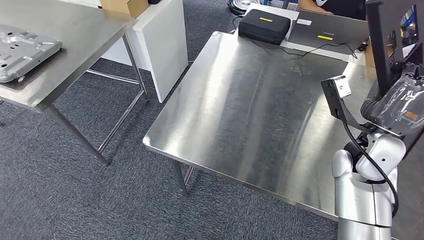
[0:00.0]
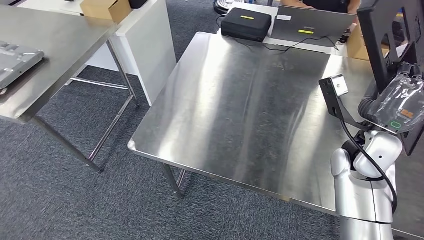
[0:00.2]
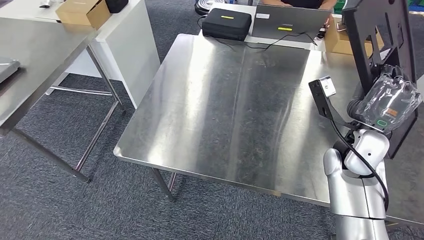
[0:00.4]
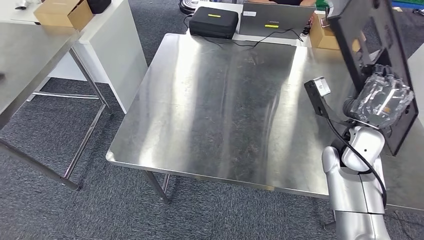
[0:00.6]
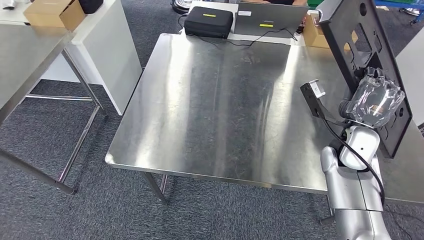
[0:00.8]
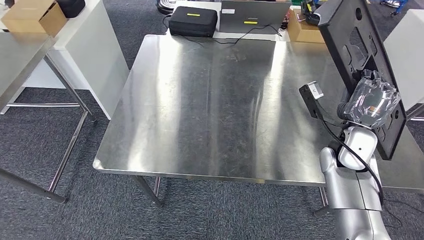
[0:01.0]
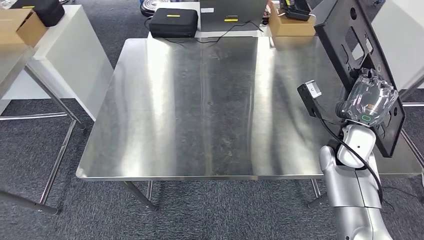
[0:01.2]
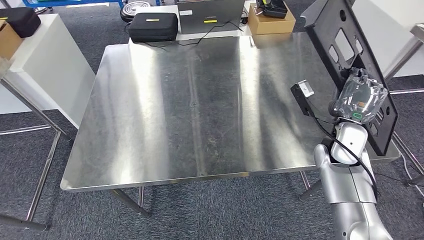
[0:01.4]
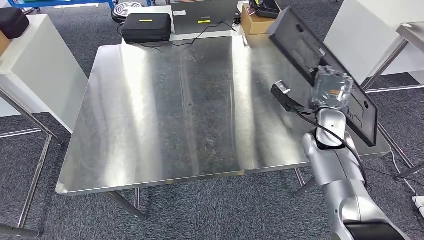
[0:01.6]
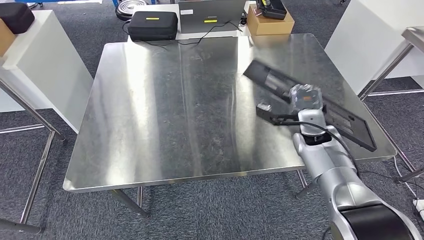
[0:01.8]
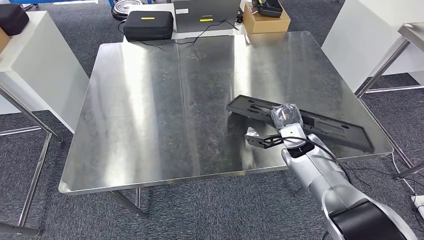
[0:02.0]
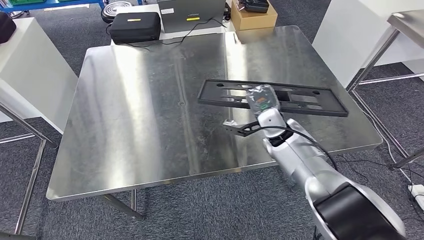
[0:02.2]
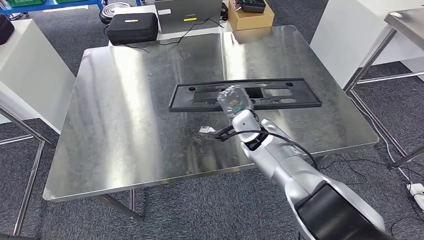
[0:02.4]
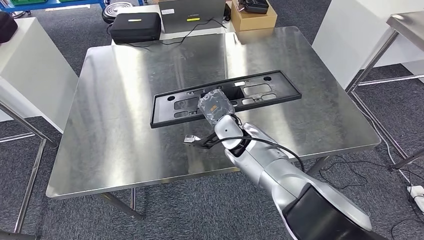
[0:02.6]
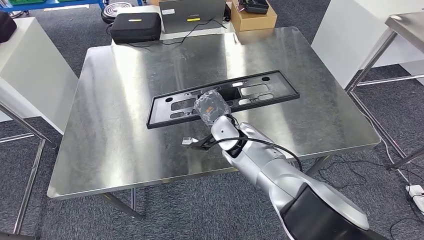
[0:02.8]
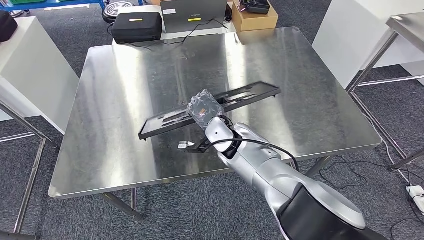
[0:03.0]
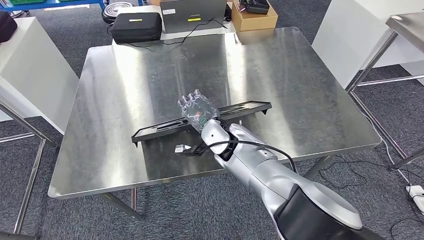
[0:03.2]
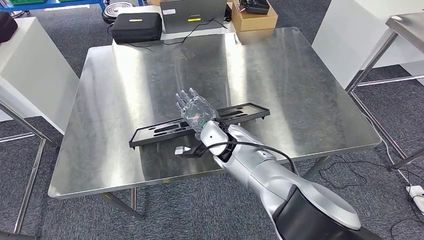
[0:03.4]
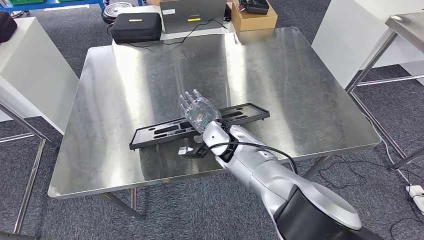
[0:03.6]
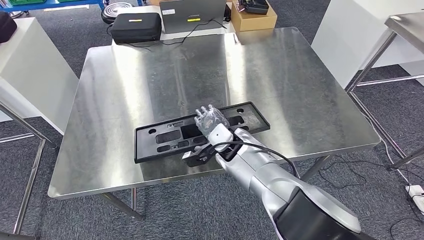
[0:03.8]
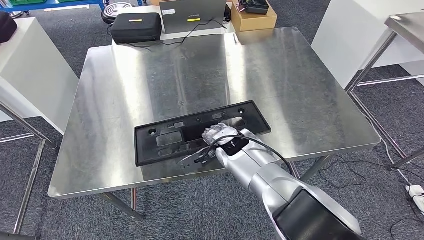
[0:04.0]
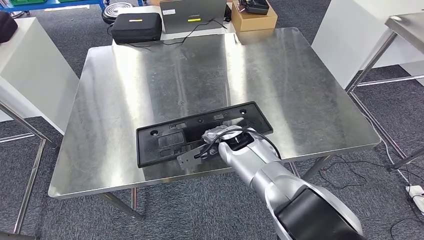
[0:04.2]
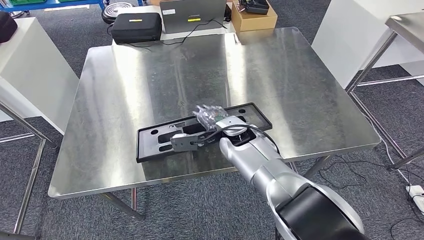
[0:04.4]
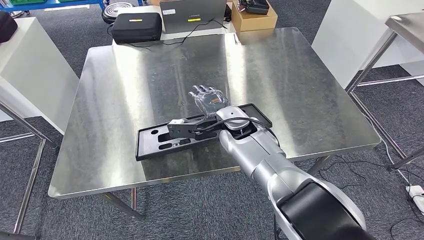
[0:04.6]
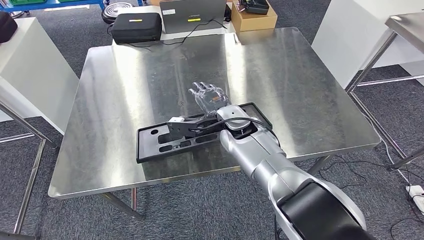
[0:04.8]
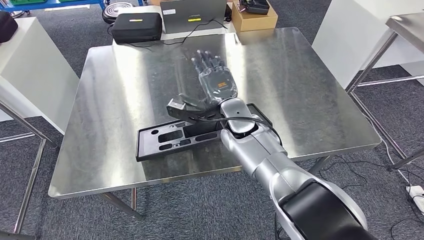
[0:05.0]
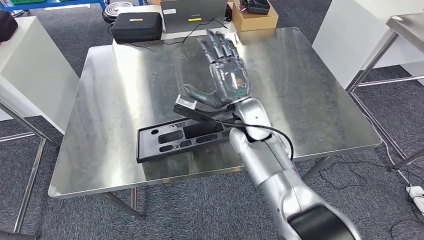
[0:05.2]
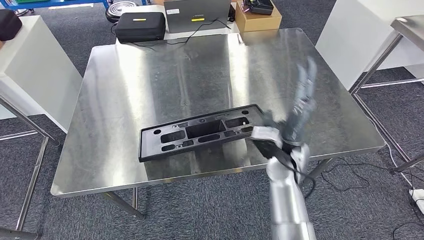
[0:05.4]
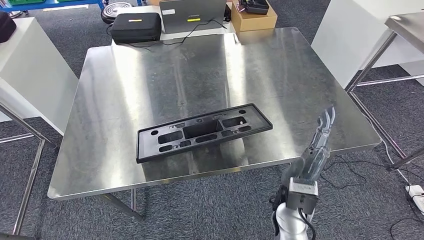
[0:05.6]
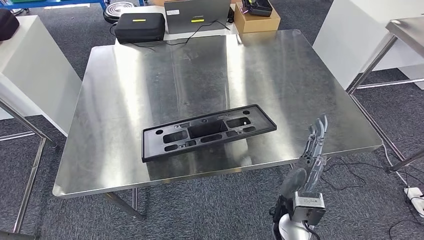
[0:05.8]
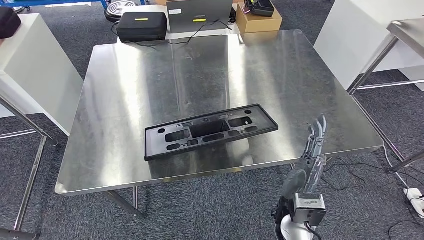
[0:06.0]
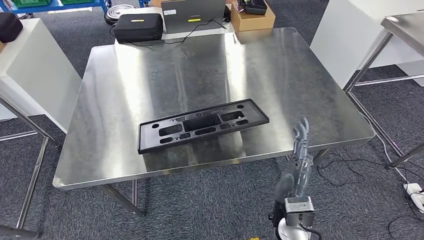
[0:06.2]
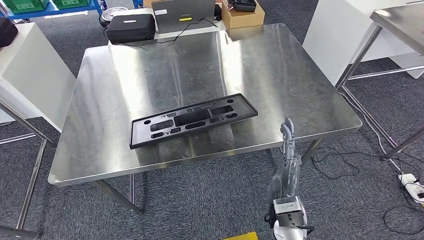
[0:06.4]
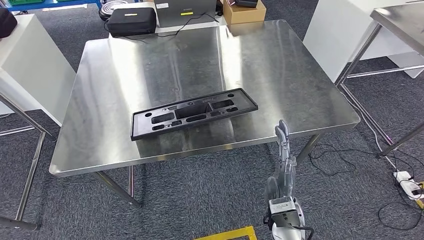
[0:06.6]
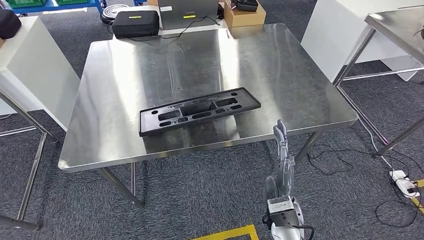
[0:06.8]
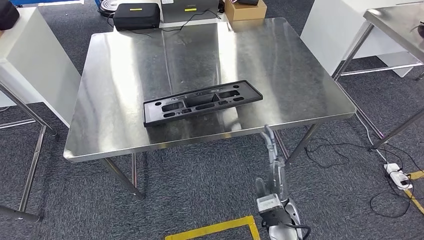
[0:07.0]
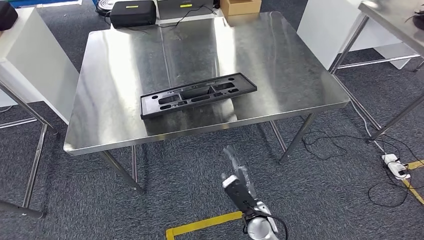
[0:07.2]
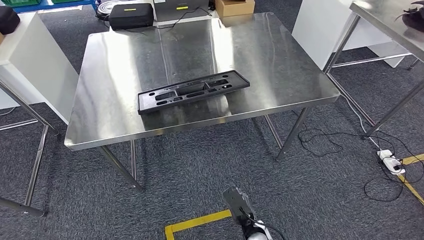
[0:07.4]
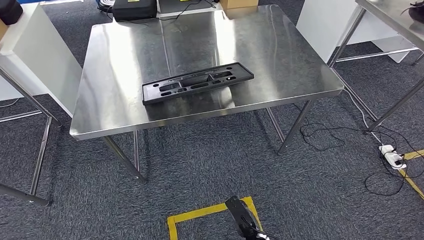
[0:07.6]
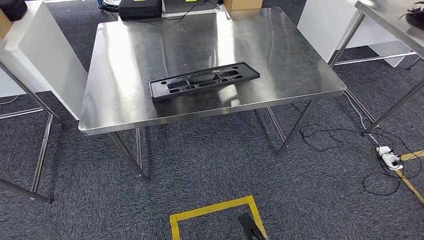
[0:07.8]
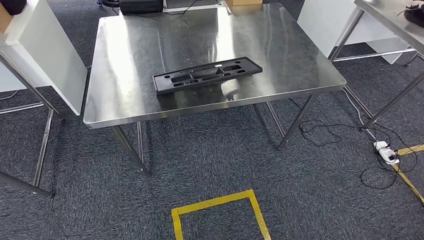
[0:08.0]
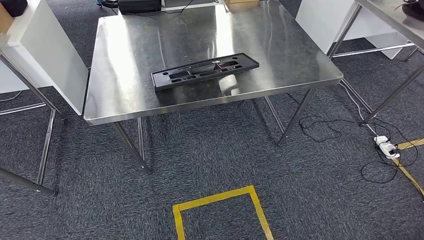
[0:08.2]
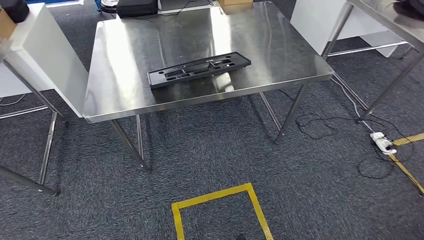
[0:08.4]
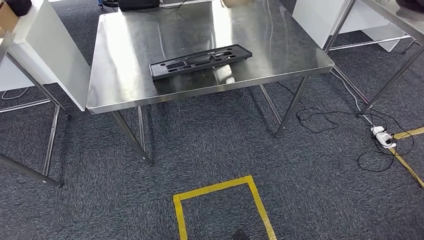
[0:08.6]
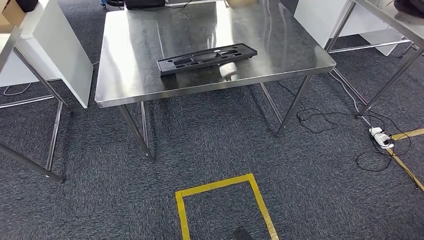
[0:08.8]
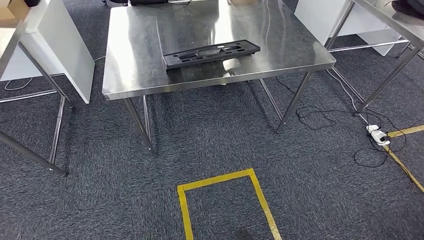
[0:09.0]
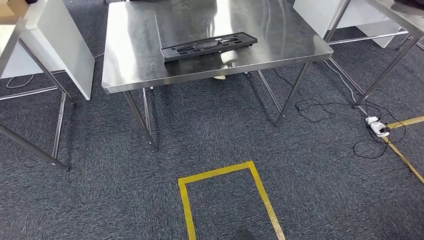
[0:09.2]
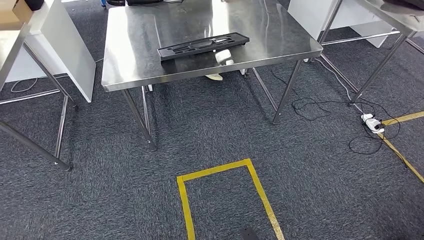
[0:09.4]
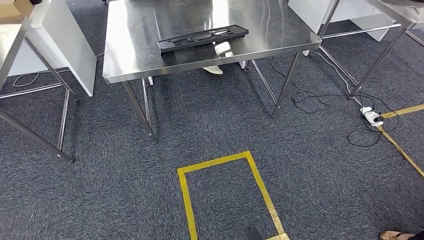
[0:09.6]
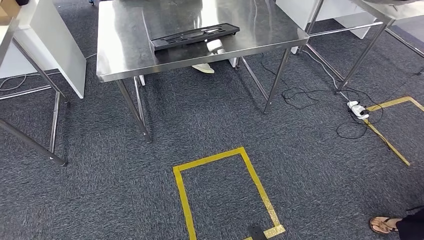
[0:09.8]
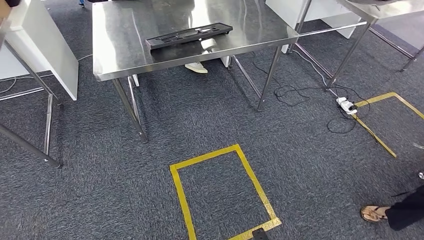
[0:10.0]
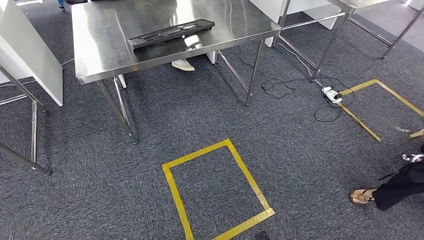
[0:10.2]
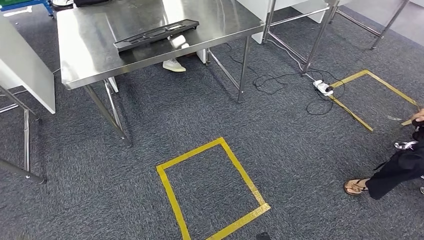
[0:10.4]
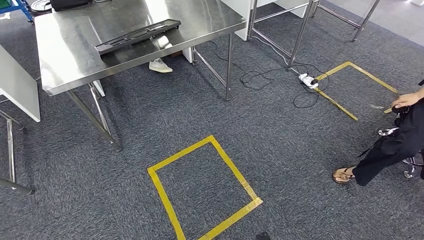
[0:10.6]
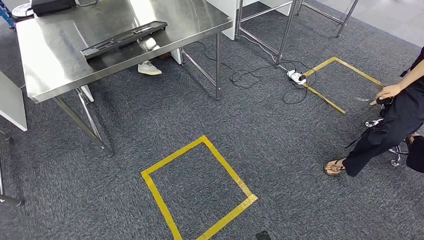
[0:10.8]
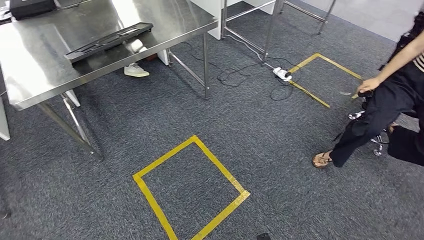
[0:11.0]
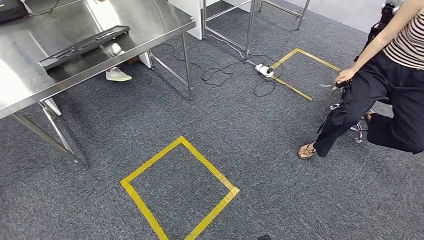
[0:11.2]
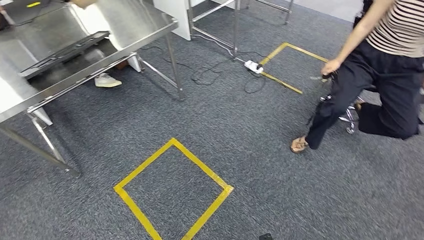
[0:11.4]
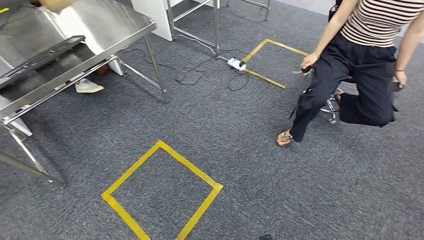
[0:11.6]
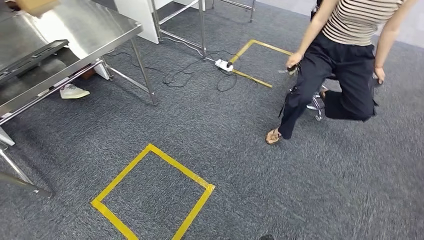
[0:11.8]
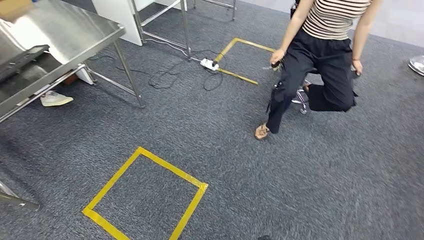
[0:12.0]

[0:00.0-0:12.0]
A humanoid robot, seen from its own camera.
Step, 0:00.0 to 0:06.2: Insert the large material into the corresponding slot on the workbench.

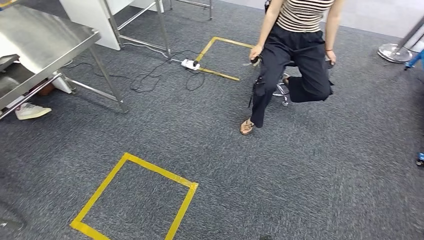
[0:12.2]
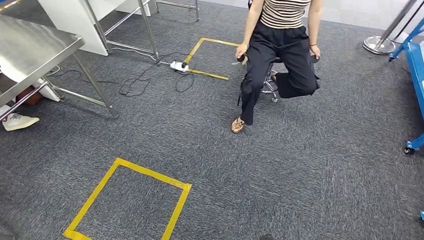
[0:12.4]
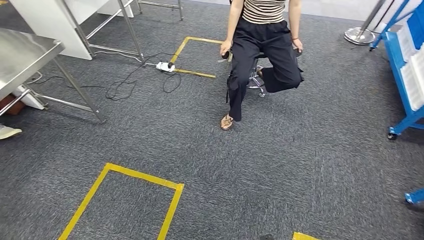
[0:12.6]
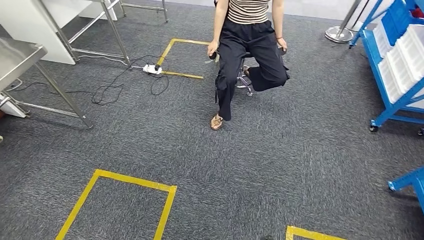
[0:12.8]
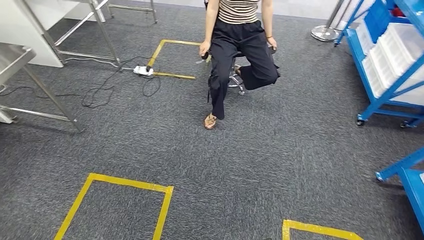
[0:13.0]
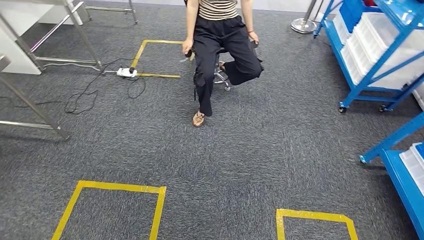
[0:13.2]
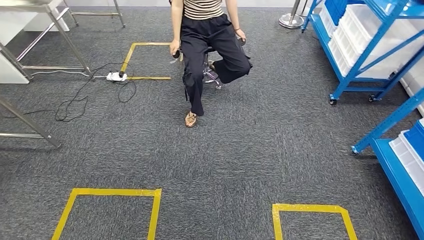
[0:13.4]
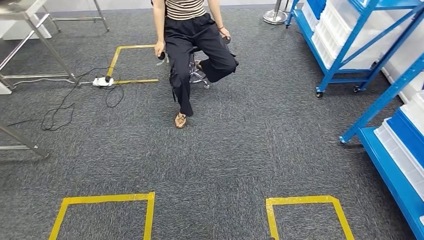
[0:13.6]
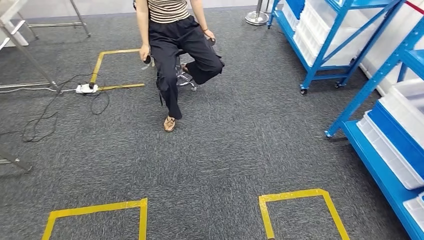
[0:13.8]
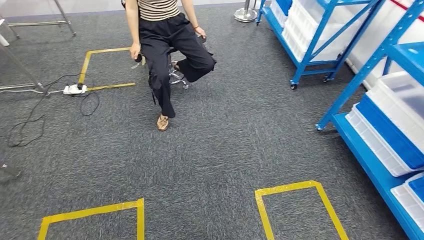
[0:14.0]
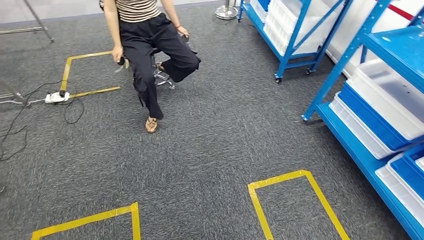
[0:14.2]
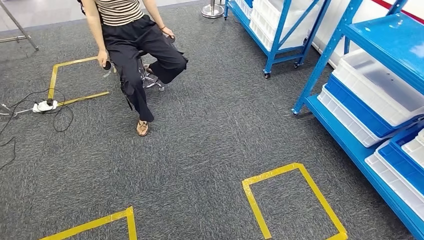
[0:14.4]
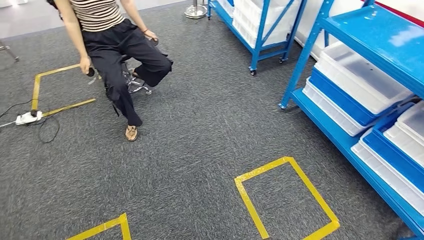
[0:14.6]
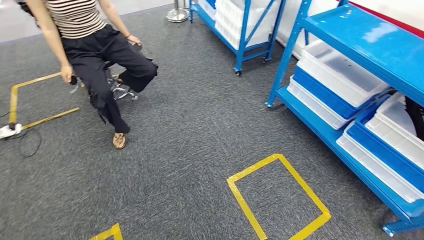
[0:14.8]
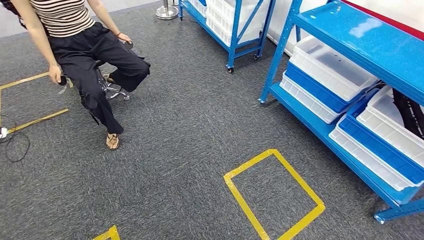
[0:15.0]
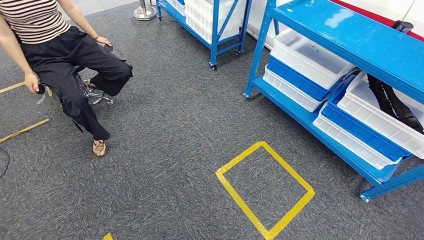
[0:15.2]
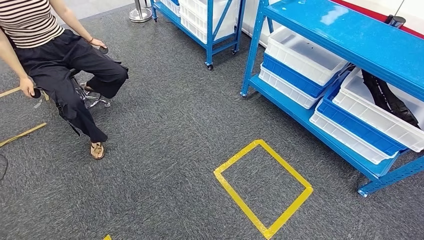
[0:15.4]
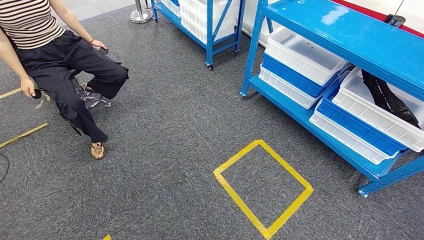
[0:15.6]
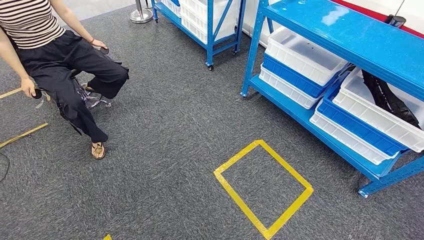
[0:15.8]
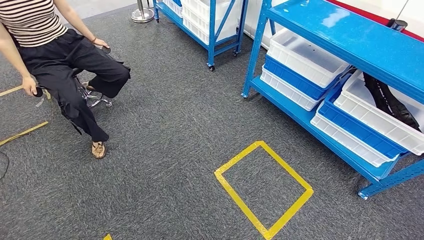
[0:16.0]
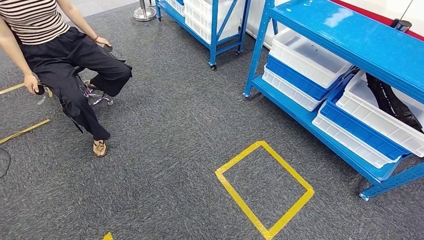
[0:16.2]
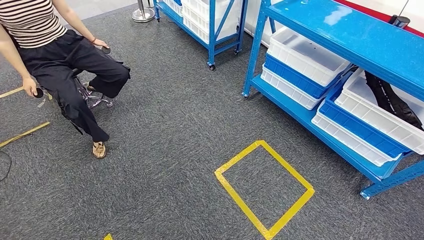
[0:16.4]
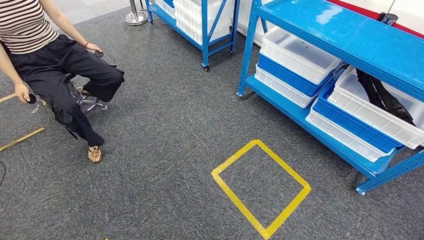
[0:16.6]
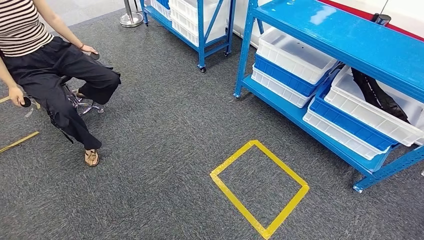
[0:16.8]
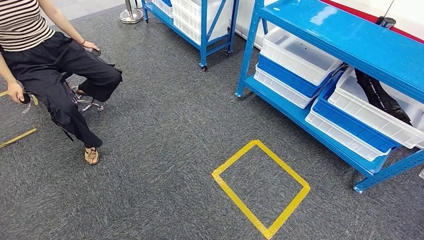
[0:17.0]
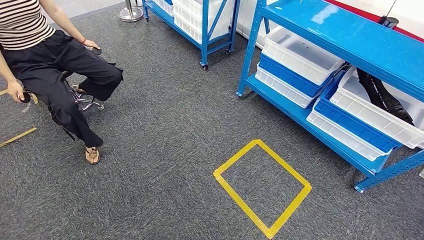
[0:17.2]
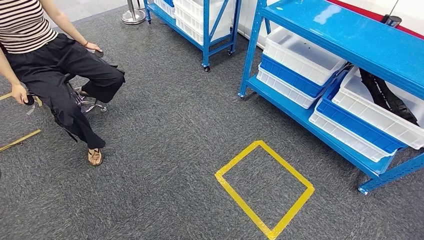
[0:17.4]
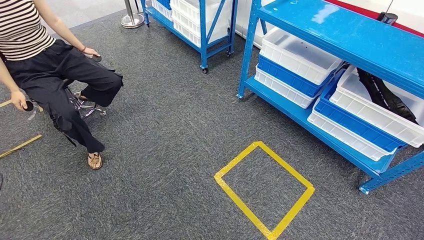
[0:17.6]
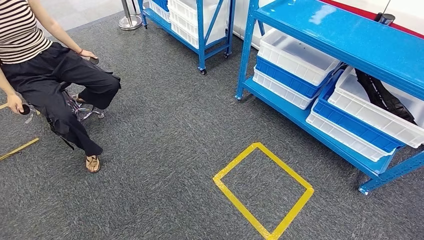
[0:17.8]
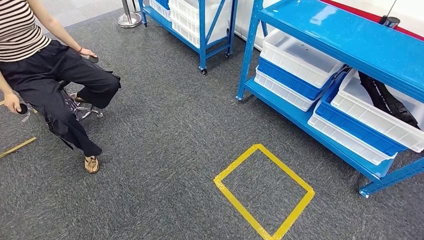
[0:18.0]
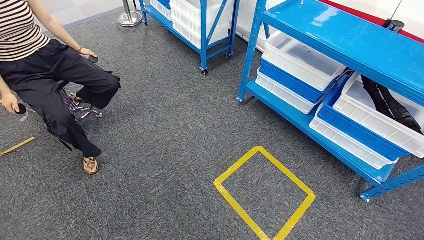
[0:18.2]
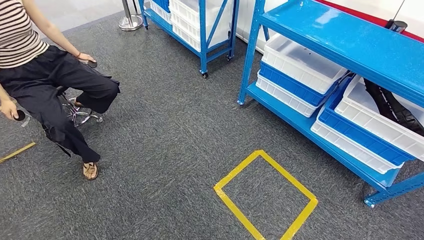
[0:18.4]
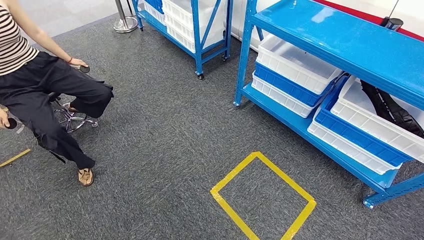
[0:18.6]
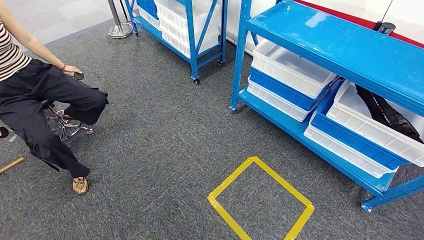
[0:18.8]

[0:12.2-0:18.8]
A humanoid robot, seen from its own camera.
0:15.4 to 0:17.2: Both hands stay about where they are.
